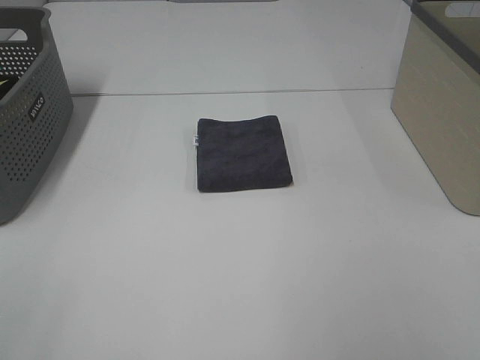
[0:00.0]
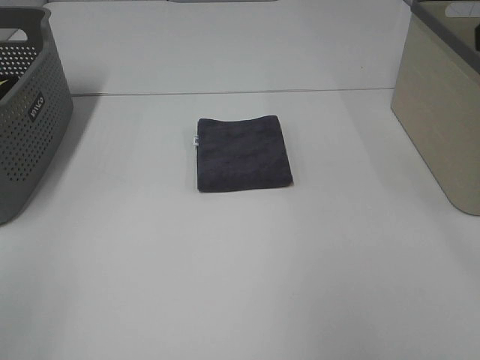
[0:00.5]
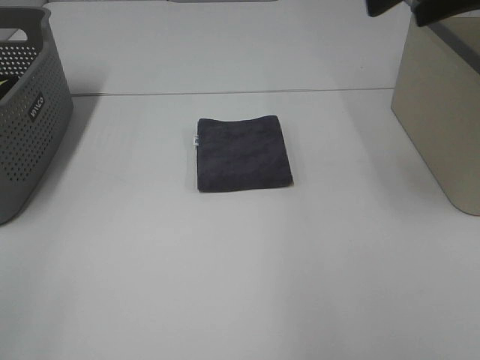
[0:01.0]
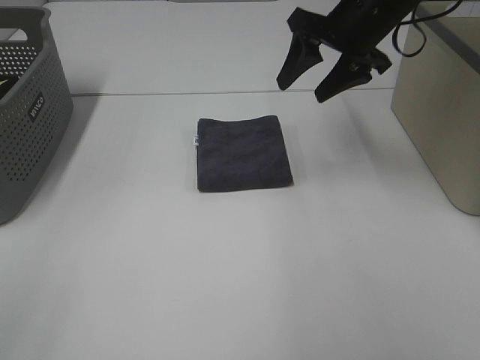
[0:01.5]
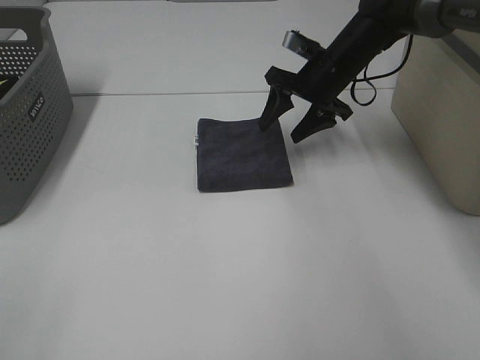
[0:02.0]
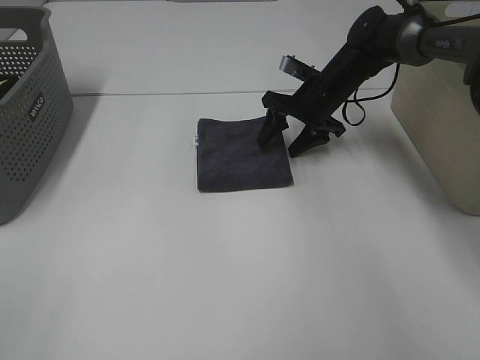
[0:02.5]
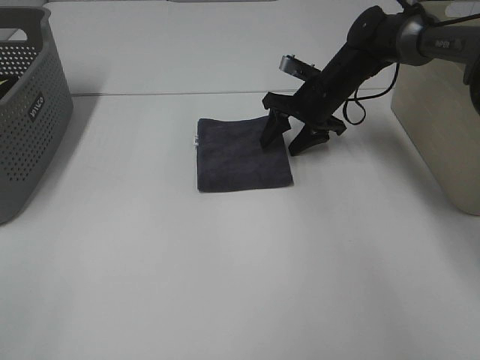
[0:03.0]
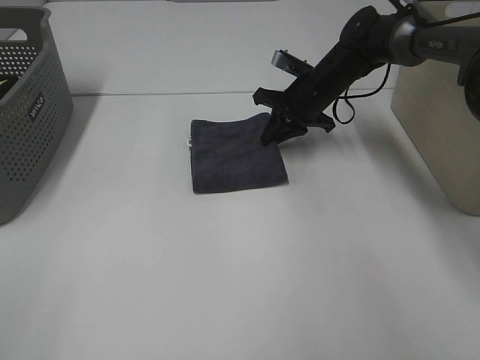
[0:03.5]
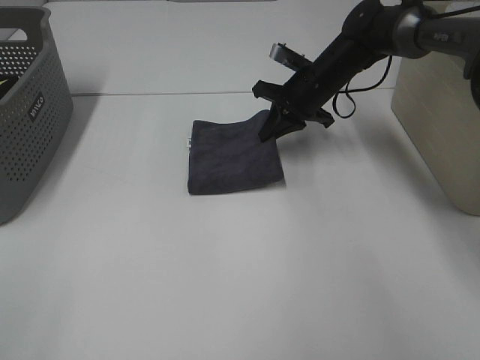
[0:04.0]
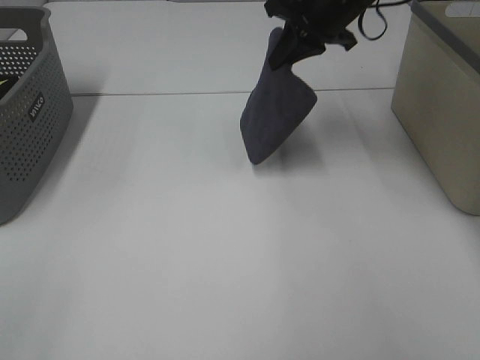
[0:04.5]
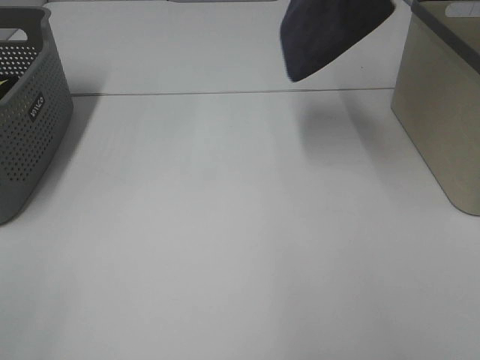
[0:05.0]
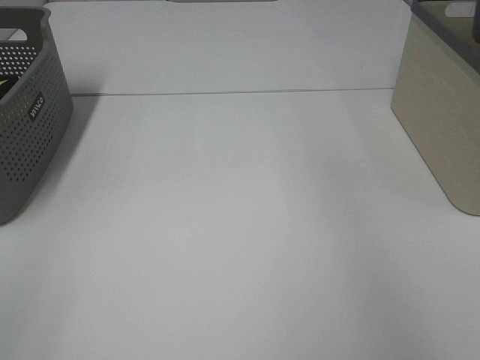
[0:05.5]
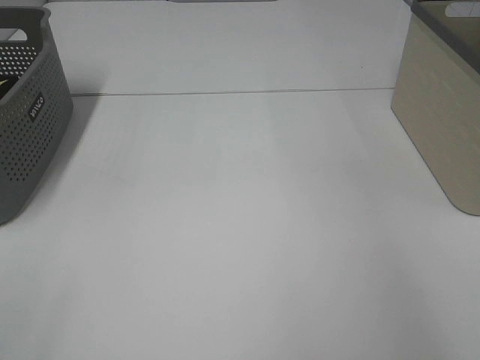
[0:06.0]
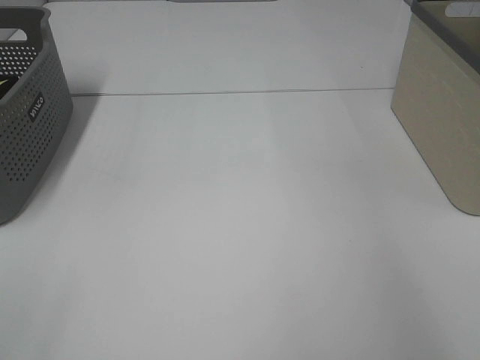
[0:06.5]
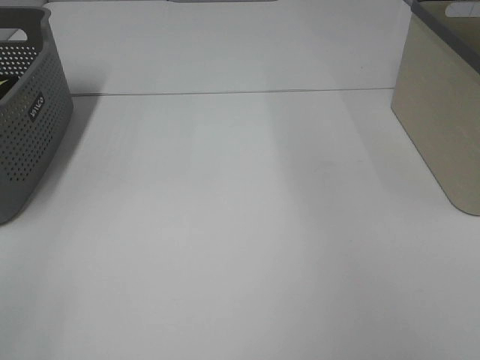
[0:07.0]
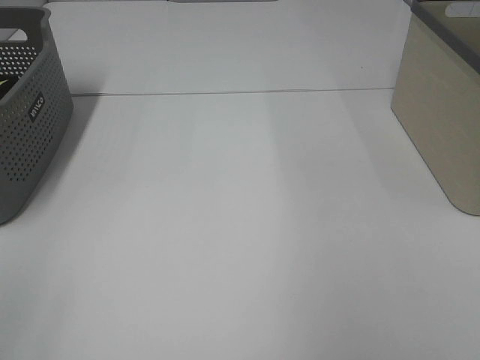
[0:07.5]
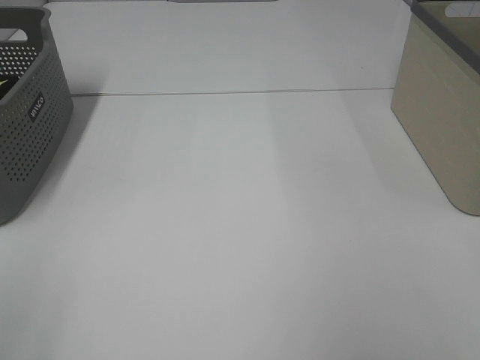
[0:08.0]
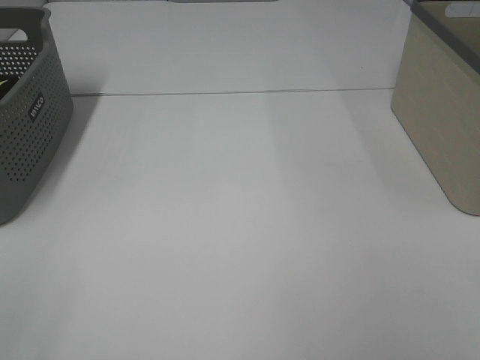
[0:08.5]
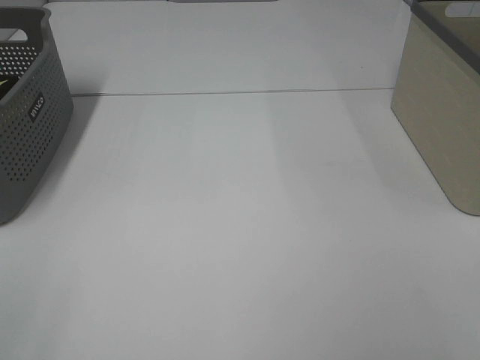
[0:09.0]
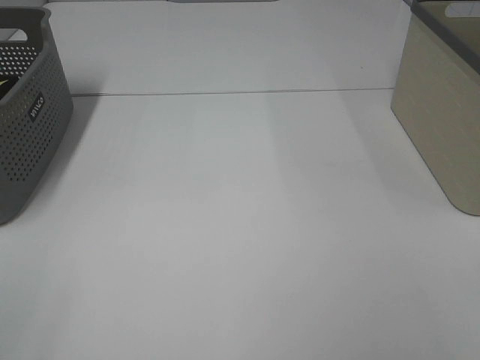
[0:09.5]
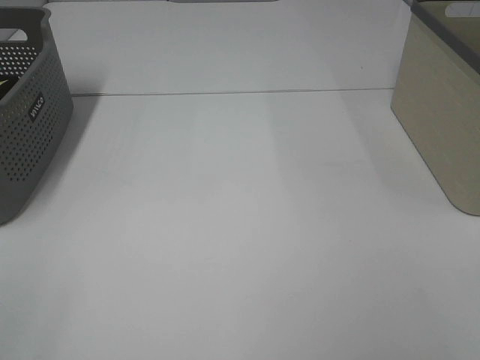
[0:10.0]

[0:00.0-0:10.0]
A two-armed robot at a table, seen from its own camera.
Step, 0:00.0 to 0:03.5: Right hand: grab the folded grey towel.
Step, 0:04.0 to 0:06.0: Right hand: place the grey towel in right basket.
0:00.0 to 0:02.0: The right gripper shifts approximately 40 cm forward.
0:02.0 to 0:04.0: The right gripper closes.
0:04.0 to 0:06.0: The right gripper heads to the right and upward, covering some 35 cm.
